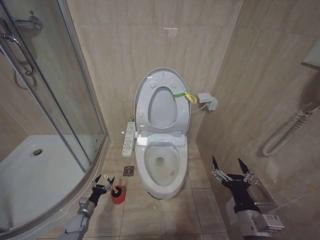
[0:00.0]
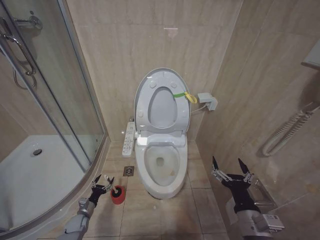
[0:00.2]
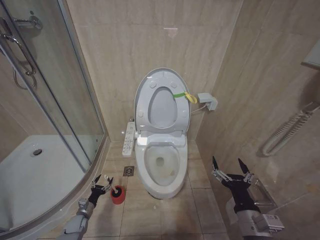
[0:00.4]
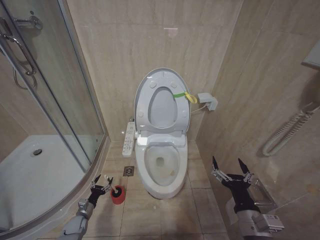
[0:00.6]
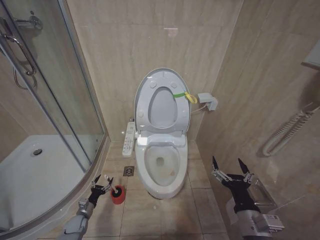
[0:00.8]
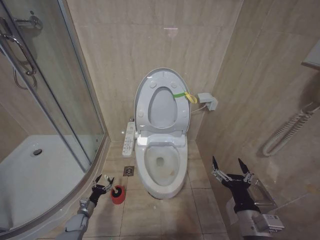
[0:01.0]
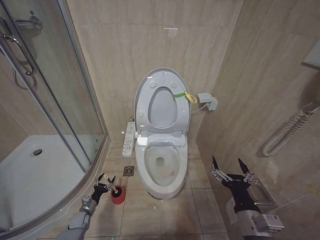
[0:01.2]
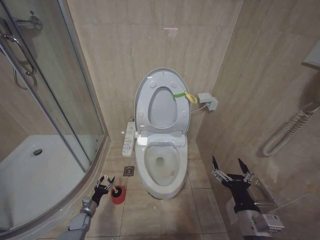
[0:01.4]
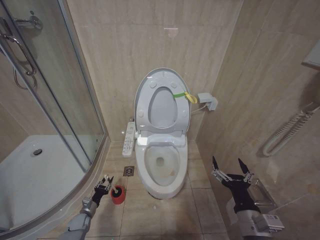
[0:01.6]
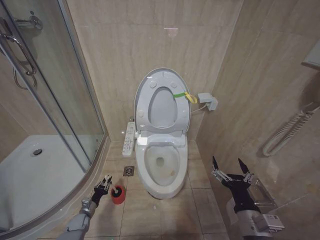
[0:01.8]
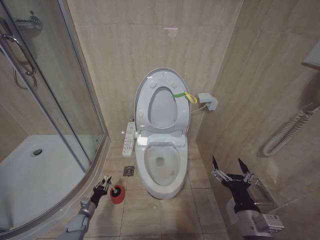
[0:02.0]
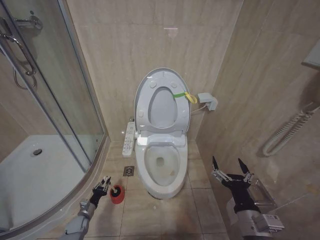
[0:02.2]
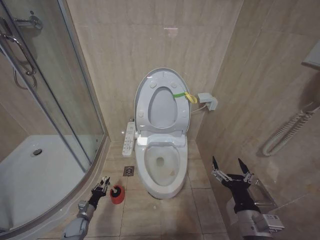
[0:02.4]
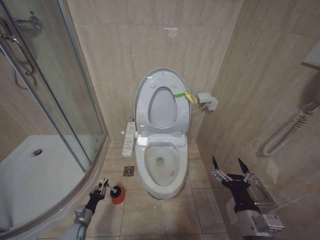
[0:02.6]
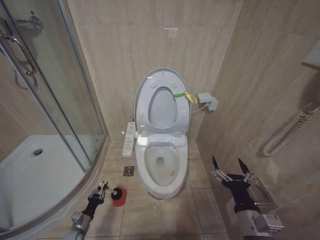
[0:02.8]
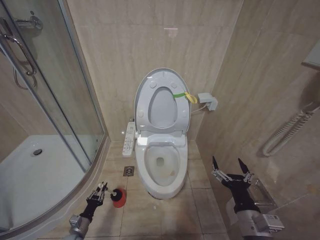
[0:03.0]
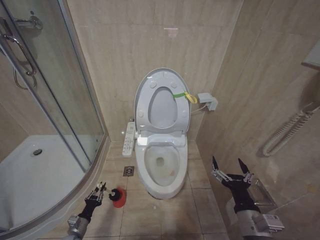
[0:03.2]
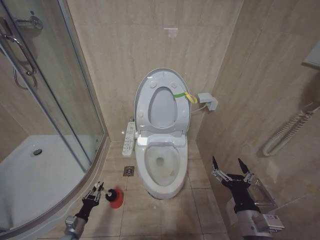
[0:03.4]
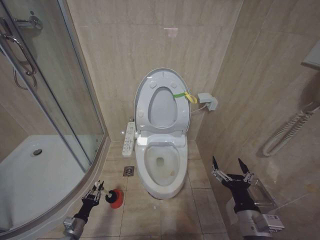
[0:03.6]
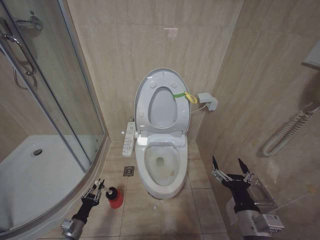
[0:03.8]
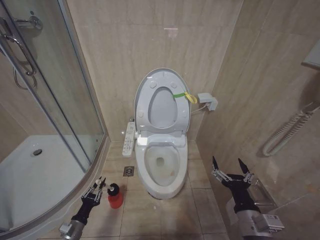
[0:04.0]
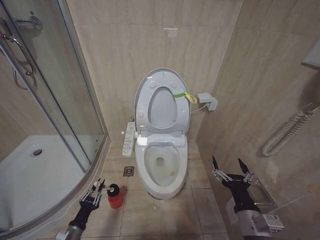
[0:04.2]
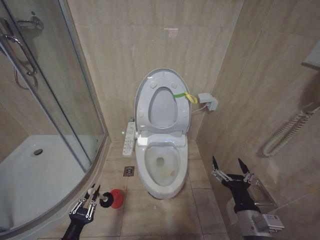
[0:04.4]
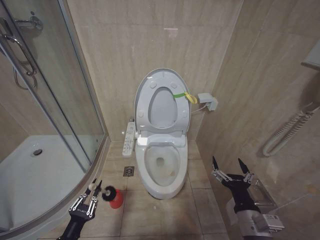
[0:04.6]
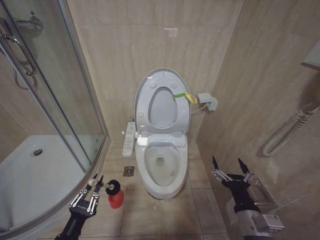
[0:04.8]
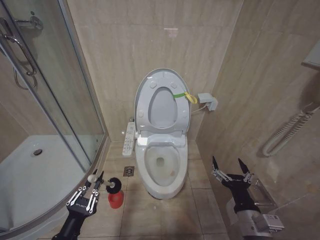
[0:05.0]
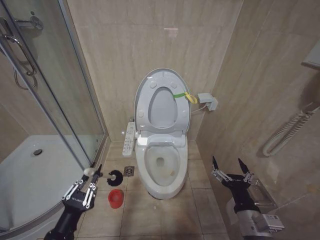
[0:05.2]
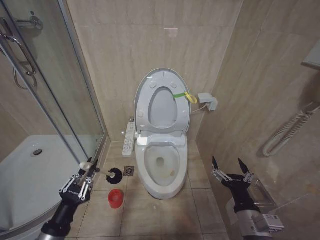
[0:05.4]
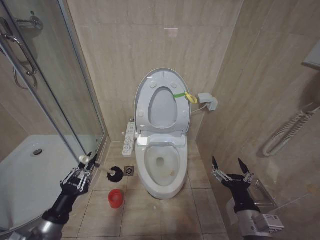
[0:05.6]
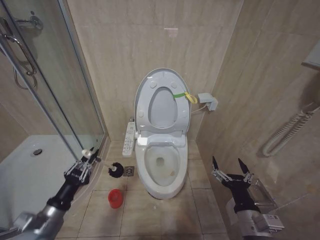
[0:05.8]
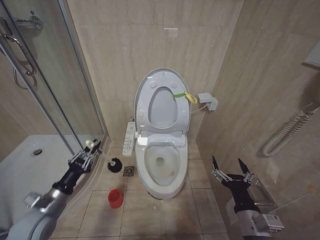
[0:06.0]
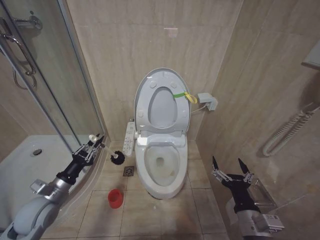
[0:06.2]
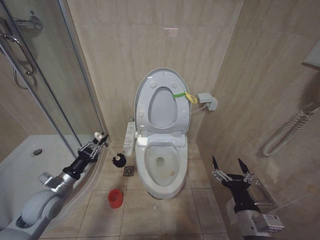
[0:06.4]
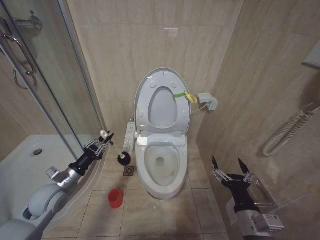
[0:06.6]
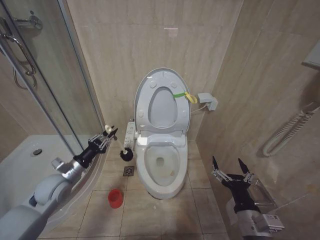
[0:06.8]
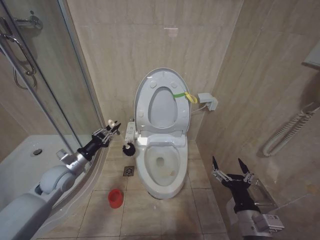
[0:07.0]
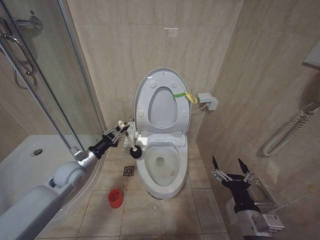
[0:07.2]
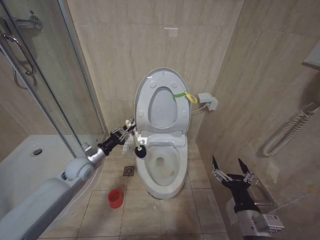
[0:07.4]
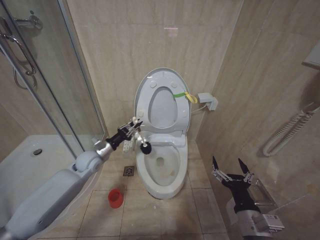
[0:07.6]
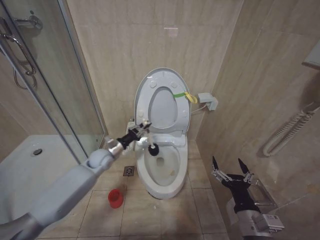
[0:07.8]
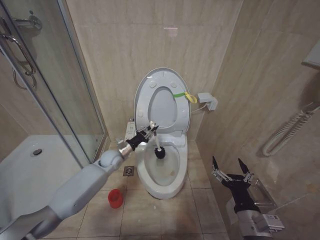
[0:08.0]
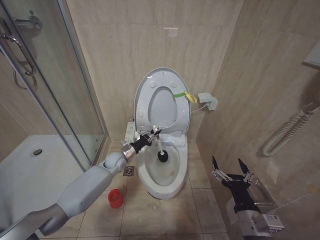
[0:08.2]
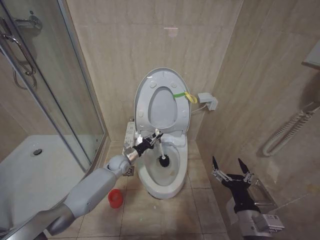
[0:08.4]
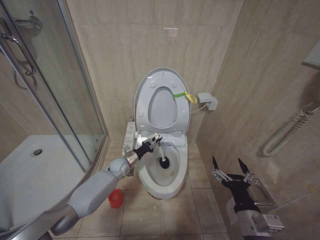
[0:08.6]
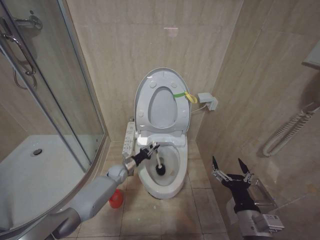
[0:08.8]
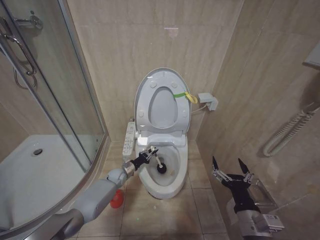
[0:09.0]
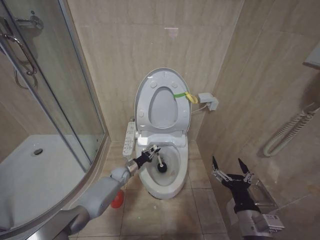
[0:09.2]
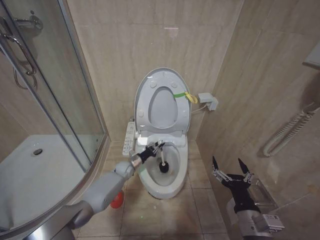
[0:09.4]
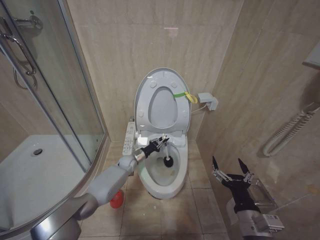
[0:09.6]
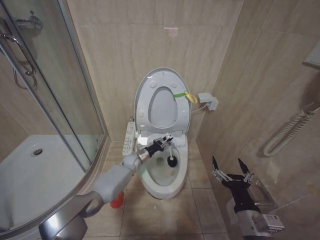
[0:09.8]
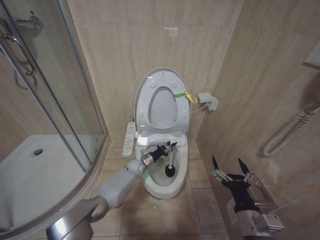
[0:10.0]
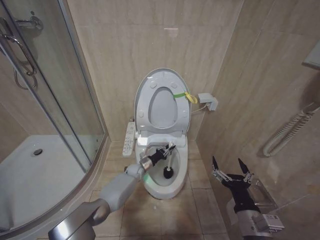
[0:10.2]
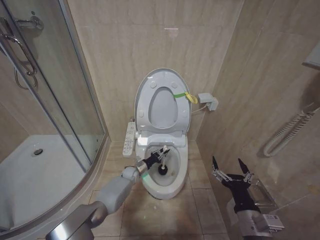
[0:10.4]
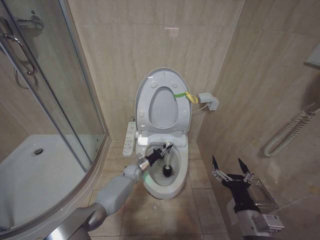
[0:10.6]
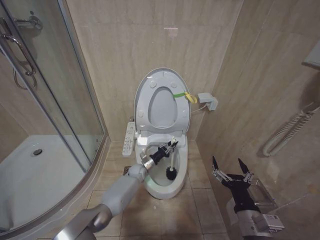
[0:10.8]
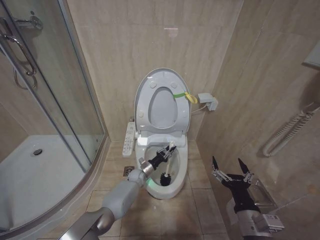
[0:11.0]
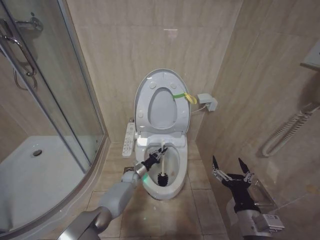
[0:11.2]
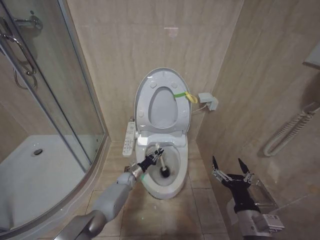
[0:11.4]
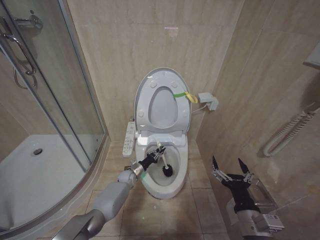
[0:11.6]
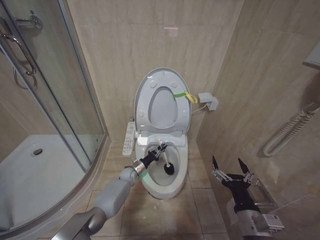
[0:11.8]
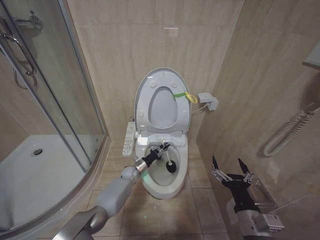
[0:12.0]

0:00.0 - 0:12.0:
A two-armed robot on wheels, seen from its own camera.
Task of the whole recording: Open the toilet lid, clean the toilet bowl with a toilet brush, close the toilet lid, and flush.
0:00.0 - 0:01.6: The two grippers keep their place.
0:01.6 - 0:03.0: The left gripper heads backward, covering roughly 10 cm, and closes up.
0:03.0 - 0:04.4: The left gripper shifts approximately 15 cm upward and backward.
0:04.4 - 0:06.0: The left gripper heads upward and forward, covering about 20 cm.
0:06.0 - 0:07.6: The left gripper moves forward, about 20 cm.
0:07.6 - 0:09.0: The left gripper is displaced downward and to the right by about 20 cm.
0:09.0 - 0:10.4: The left gripper moves to the right, some 10 cm.
0:10.4 - 0:12.0: The grippers make only small movements.

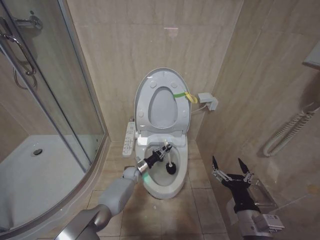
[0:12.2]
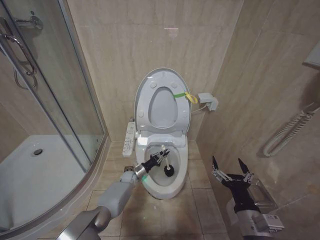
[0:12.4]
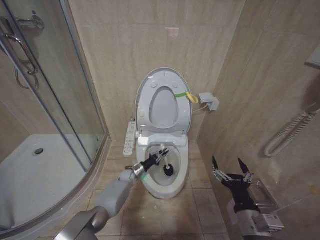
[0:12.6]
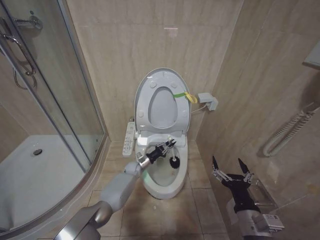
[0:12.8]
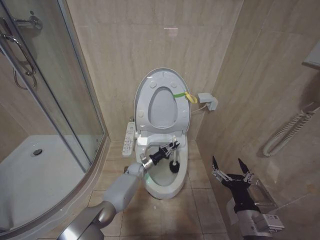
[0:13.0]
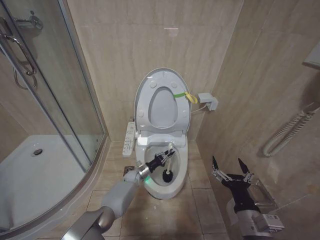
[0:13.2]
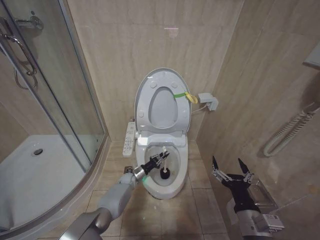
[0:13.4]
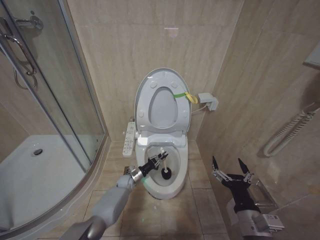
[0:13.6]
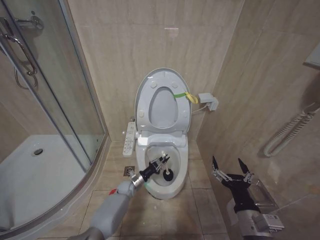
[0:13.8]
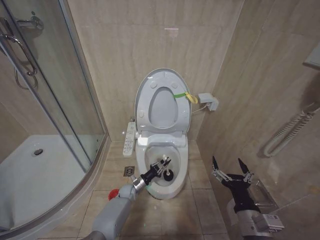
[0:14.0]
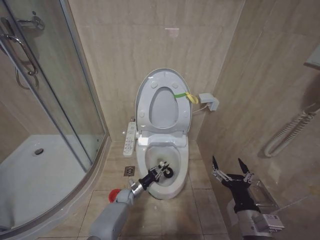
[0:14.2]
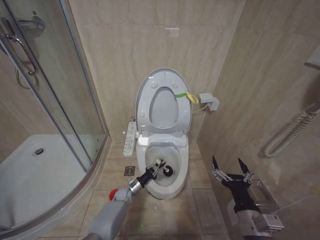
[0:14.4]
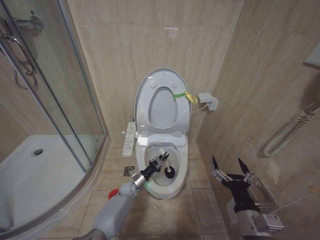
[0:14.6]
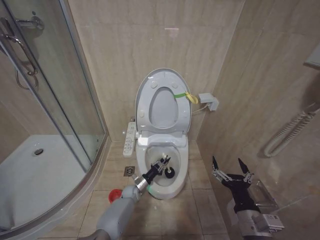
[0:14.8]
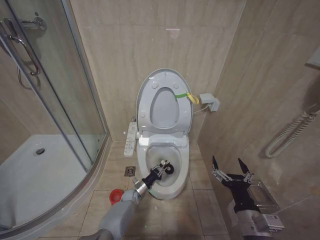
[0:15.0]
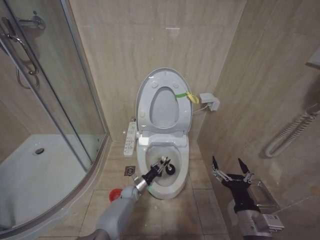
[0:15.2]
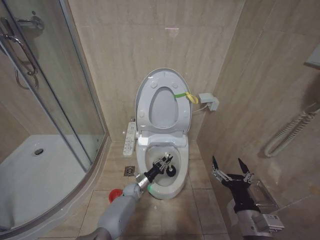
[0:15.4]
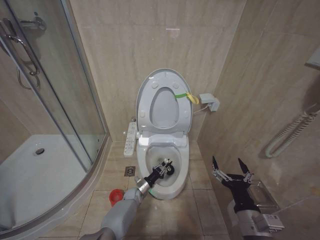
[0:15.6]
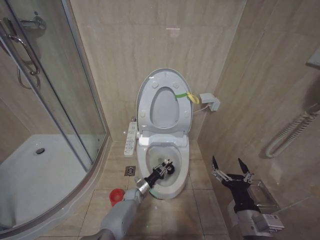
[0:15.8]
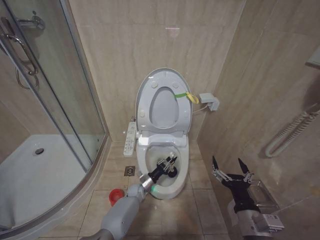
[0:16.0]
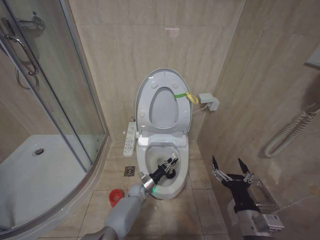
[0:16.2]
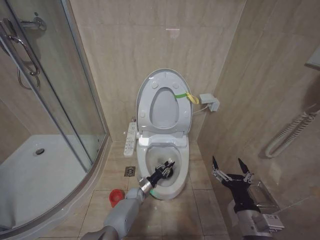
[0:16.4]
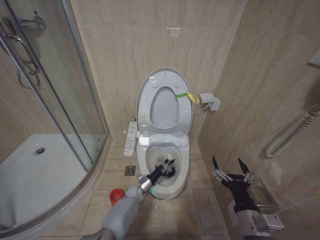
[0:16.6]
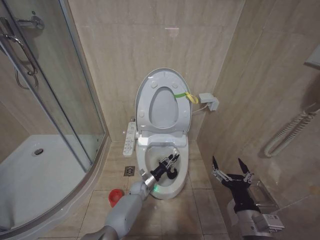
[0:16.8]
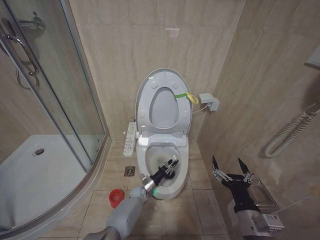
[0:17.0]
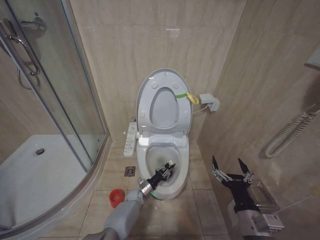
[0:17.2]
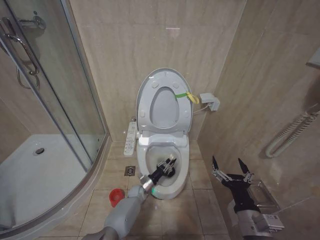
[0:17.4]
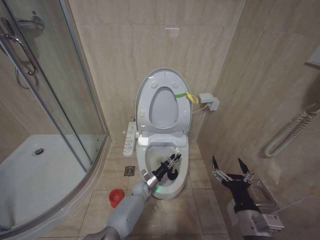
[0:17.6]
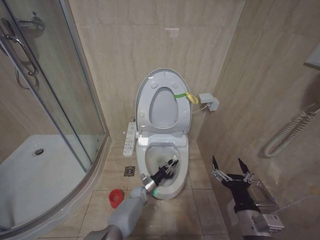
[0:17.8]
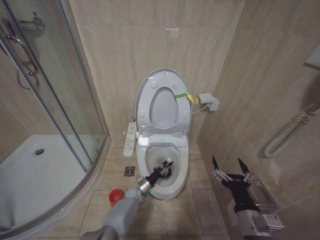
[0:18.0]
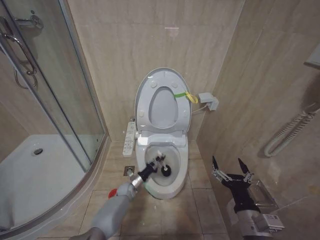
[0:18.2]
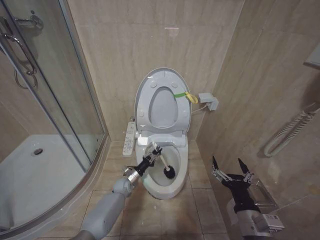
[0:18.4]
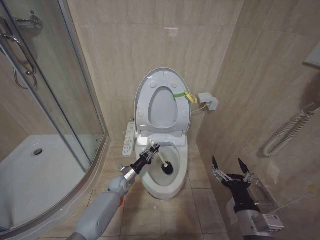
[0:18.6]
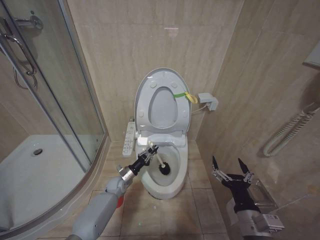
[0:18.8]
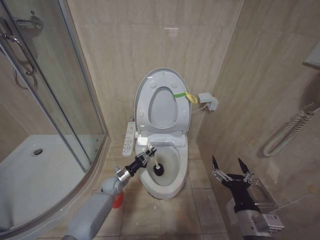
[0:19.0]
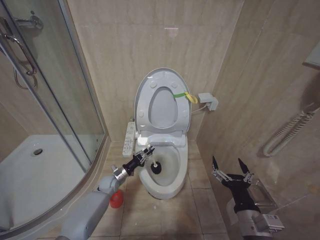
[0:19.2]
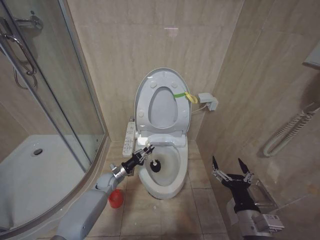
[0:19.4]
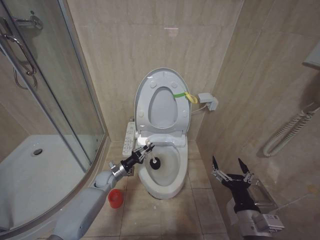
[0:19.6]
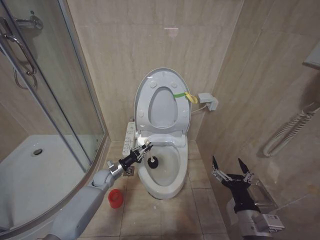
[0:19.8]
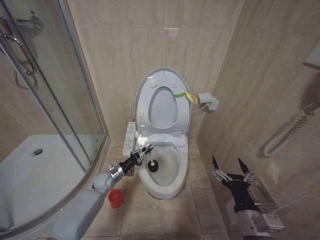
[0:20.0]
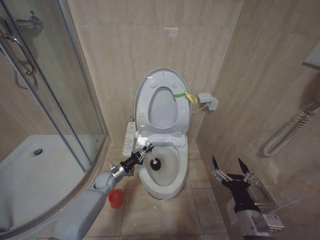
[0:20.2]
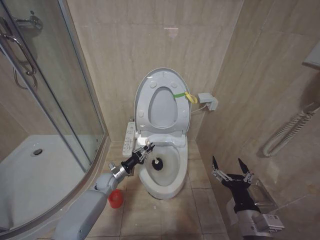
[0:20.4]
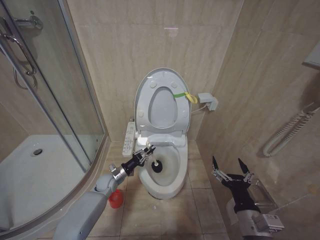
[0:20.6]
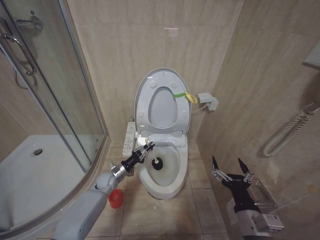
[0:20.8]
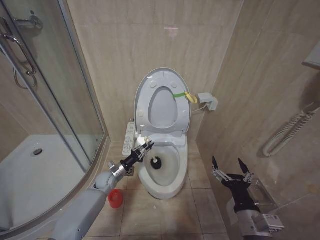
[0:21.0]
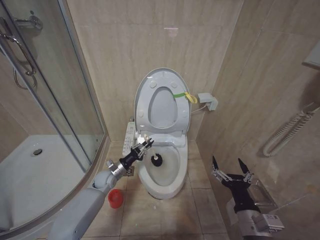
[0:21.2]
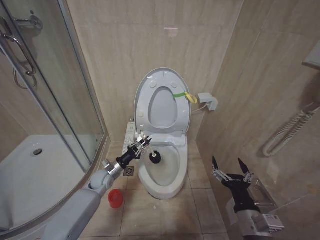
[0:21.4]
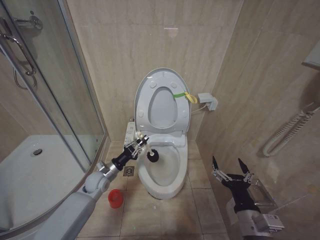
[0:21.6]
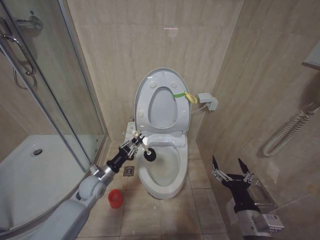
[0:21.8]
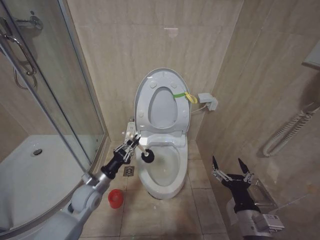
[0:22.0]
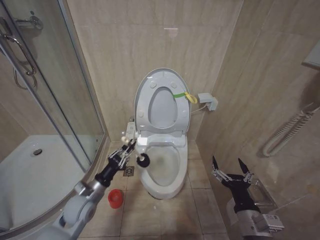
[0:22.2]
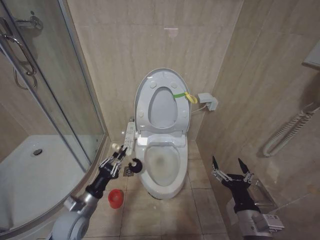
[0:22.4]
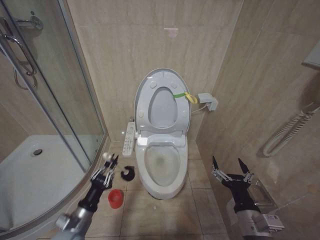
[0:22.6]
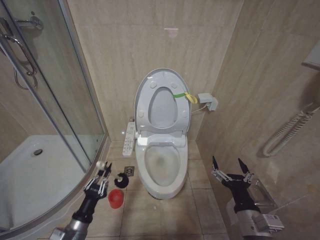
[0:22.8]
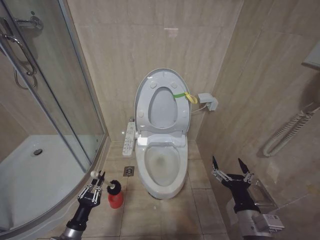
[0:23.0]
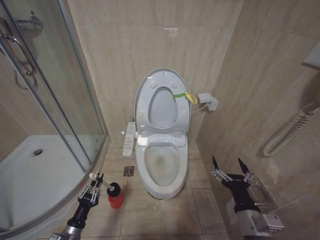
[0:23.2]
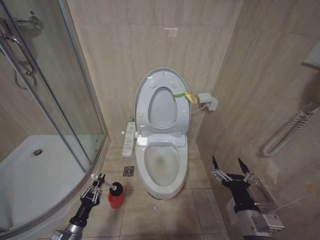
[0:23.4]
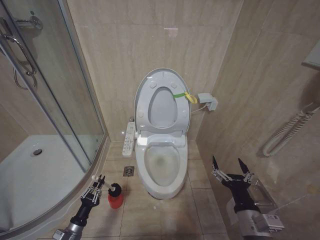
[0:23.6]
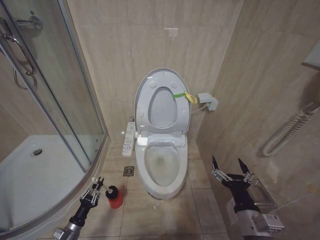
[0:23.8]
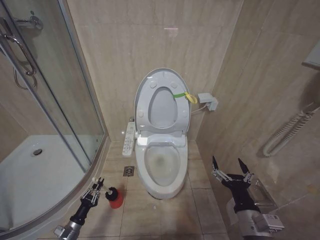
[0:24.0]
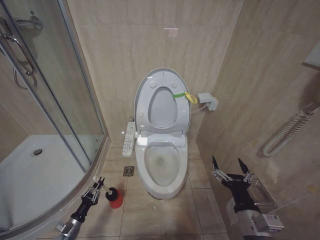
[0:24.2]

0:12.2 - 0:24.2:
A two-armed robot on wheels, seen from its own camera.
Task of the whole recording: Open the toilet lid, clean the toilet bowl with a toilet brush, close the toilet lid, and flush.
0:12.2 - 0:13.8: The left gripper moves some 5 cm.
0:13.8 - 0:15.2: The left gripper changes place by some 5 cm.
0:15.2 - 0:16.6: The grippers make only small movements.
0:16.6 - 0:18.2: There are only small adjustments of the grippers.
0:18.2 - 0:19.8: The left gripper travels upward and to the left by approximately 15 cm.
0:19.8 - 0:21.2: The grippers make only small movements.
0:21.2 - 0:22.6: The left gripper is displaced backward by approximately 20 cm.
0:22.6 - 0:24.2: The left gripper heads downward and to the left, covering roughly 25 cm.
